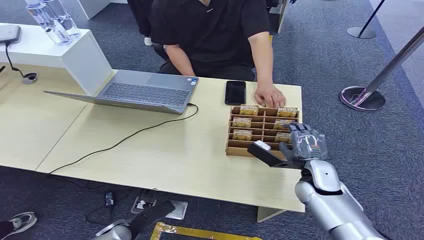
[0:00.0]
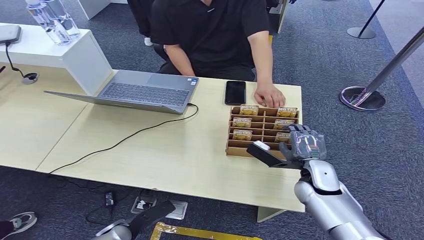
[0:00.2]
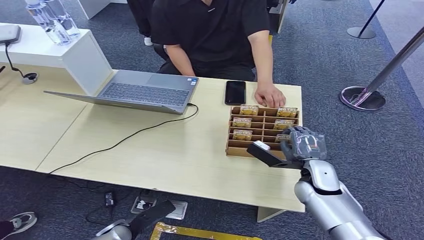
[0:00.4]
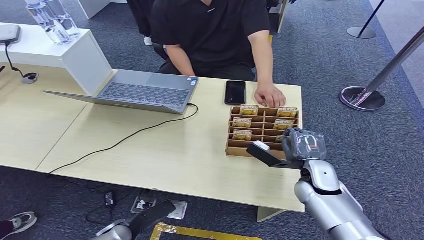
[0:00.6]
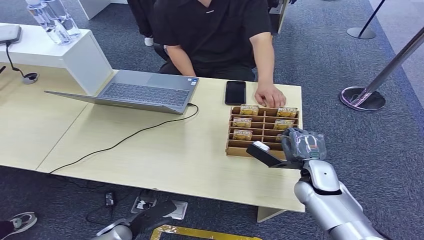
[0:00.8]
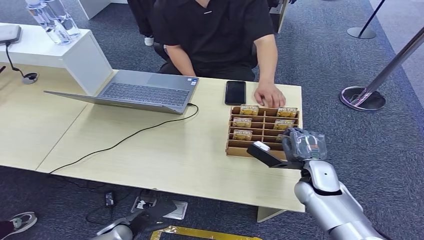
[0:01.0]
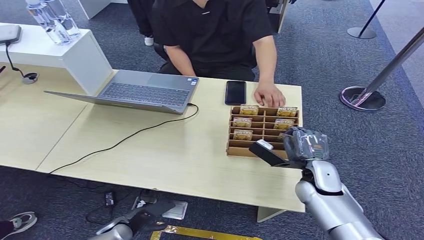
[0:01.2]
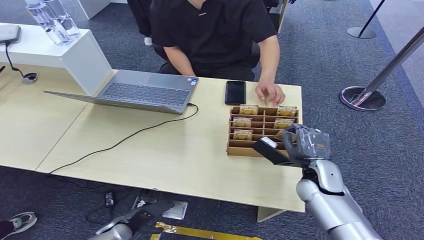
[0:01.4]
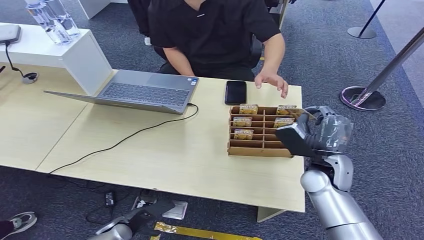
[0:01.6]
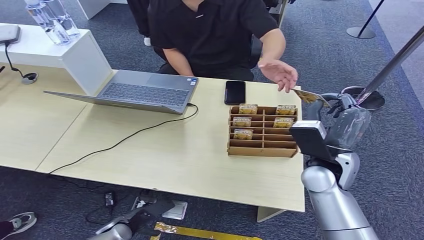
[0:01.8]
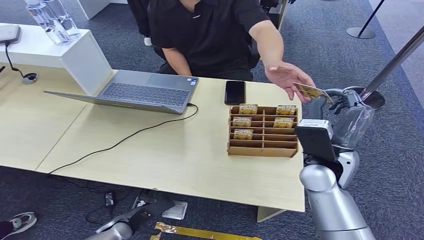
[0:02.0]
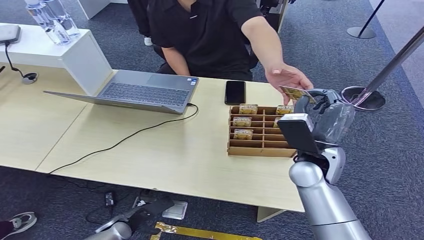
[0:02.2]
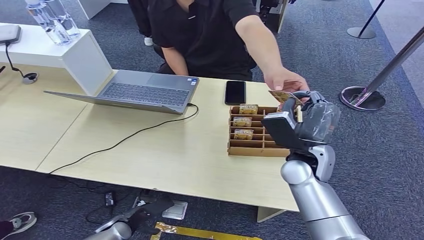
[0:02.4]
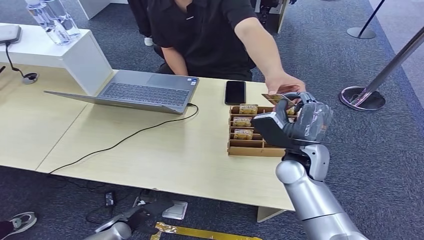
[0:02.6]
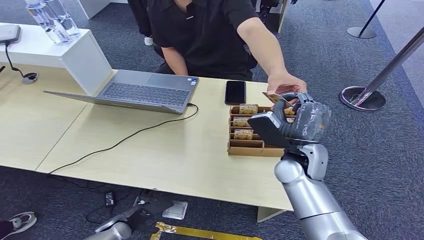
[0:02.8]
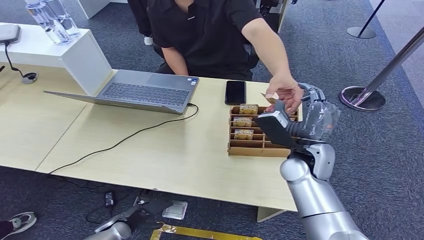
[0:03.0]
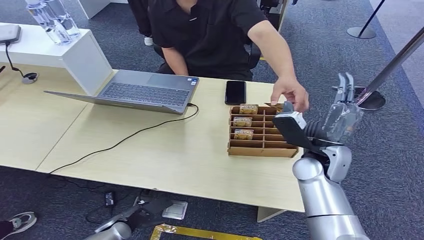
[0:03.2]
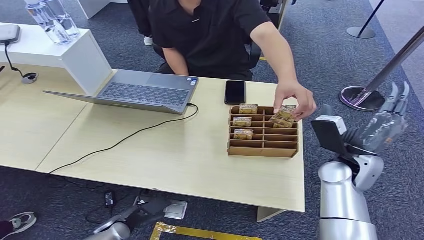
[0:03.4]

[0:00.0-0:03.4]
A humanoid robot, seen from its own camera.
Step, 0:00.0 to 0:01.6: Pick up the room card from the card holder.
Step, 0:01.8 to 0:03.4: Hand the room card to the target.
